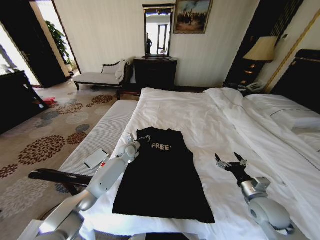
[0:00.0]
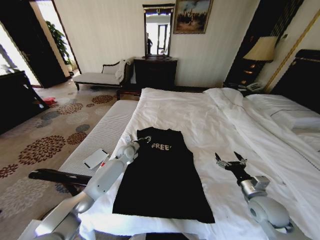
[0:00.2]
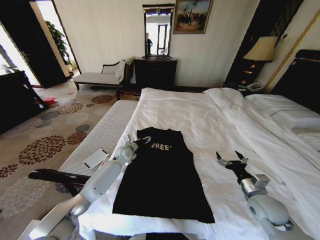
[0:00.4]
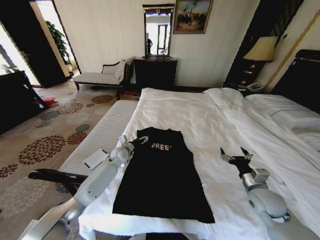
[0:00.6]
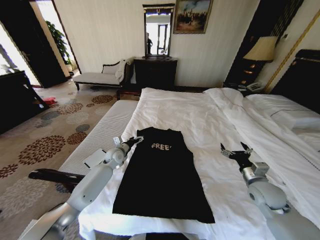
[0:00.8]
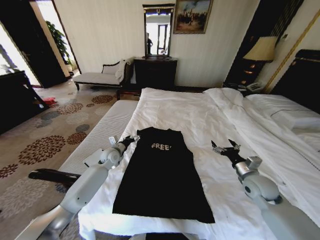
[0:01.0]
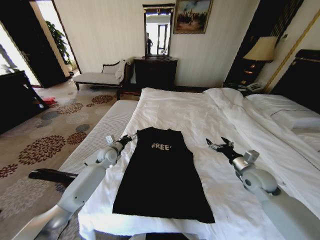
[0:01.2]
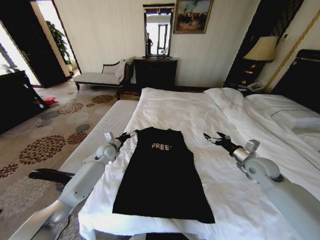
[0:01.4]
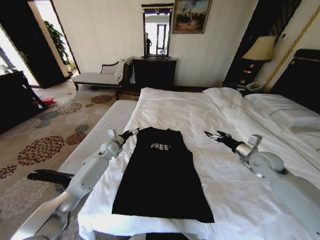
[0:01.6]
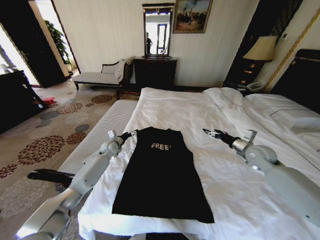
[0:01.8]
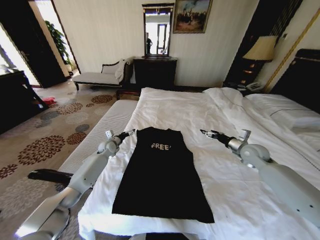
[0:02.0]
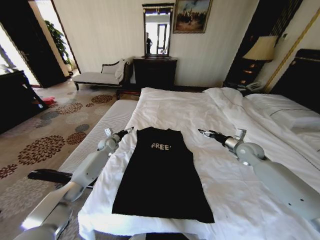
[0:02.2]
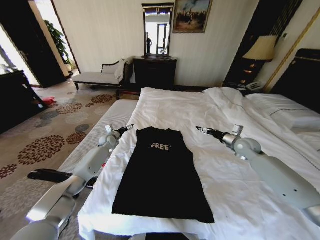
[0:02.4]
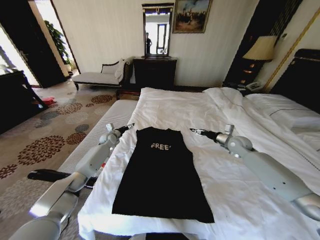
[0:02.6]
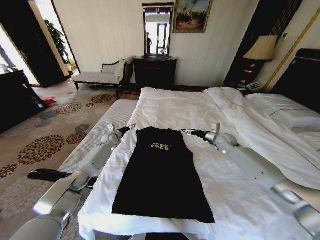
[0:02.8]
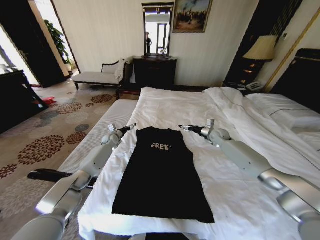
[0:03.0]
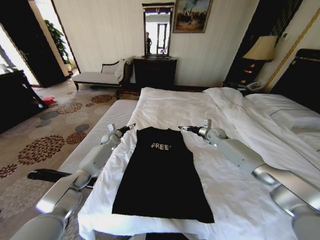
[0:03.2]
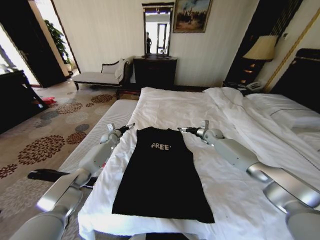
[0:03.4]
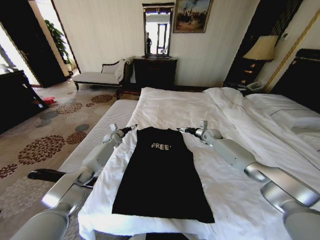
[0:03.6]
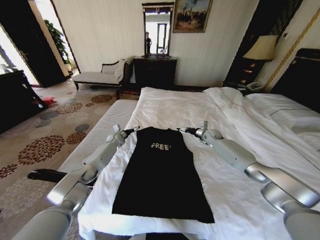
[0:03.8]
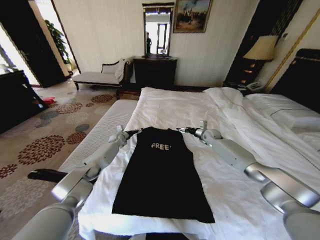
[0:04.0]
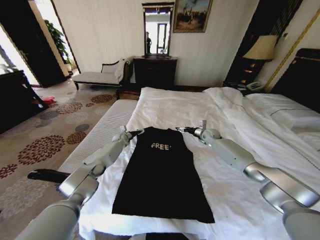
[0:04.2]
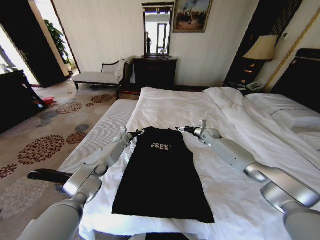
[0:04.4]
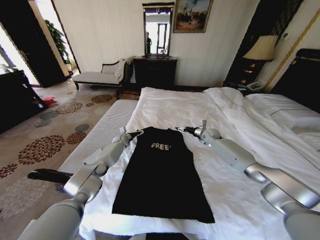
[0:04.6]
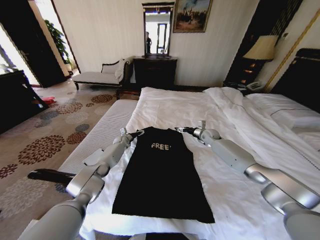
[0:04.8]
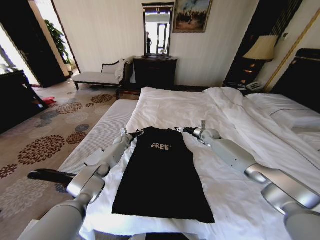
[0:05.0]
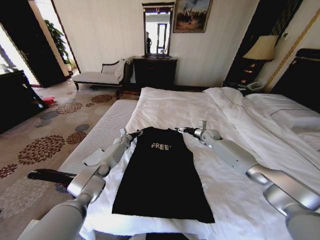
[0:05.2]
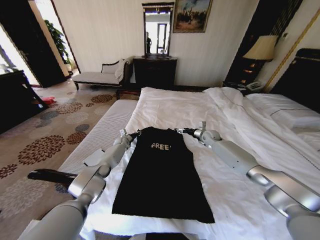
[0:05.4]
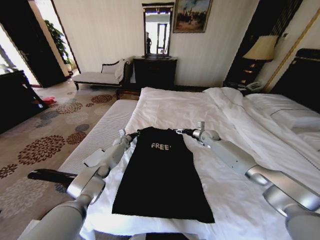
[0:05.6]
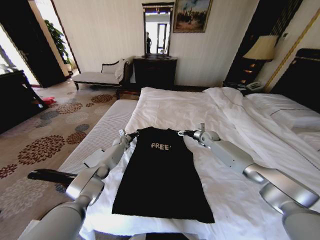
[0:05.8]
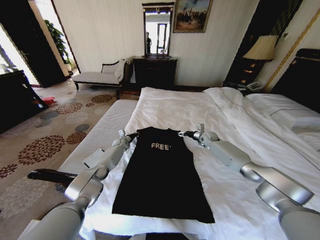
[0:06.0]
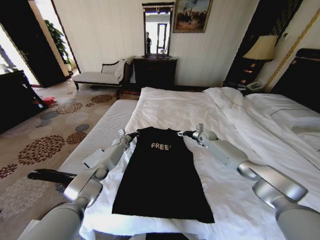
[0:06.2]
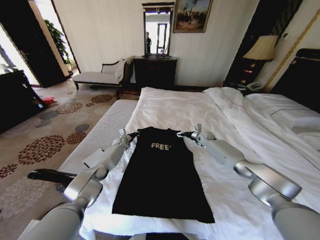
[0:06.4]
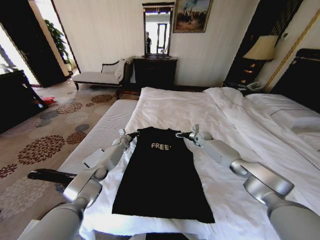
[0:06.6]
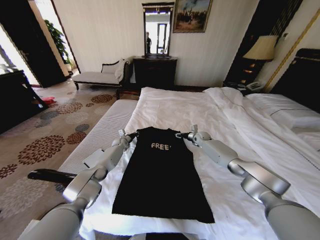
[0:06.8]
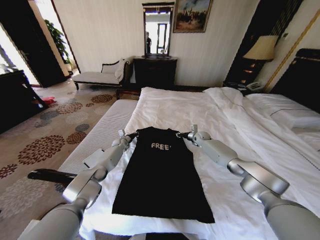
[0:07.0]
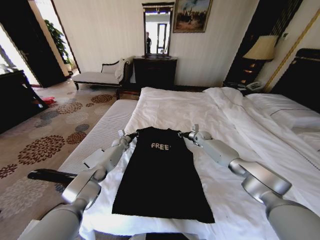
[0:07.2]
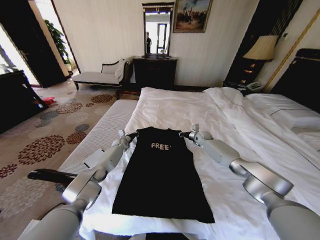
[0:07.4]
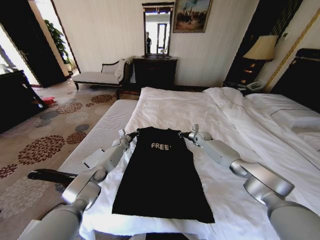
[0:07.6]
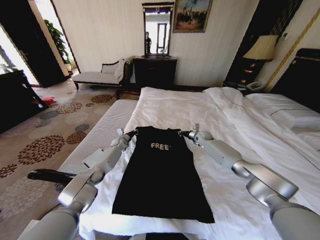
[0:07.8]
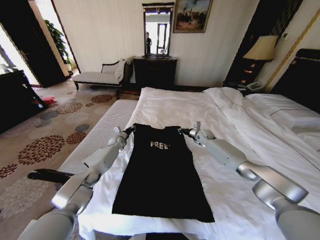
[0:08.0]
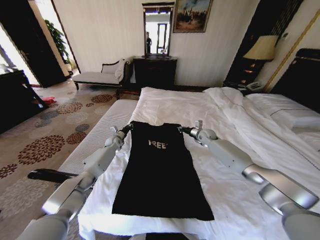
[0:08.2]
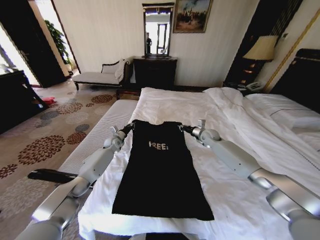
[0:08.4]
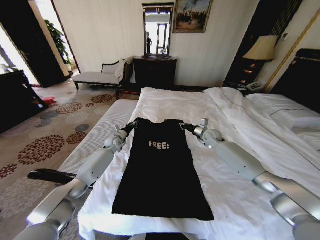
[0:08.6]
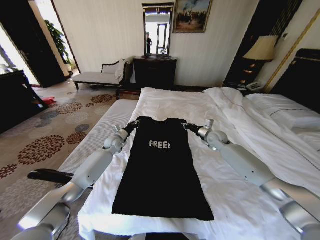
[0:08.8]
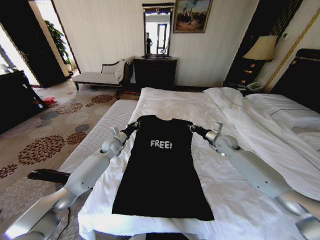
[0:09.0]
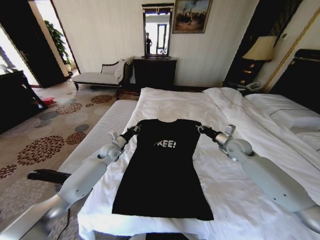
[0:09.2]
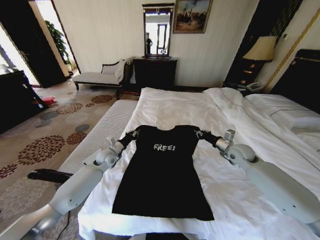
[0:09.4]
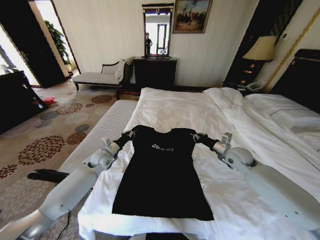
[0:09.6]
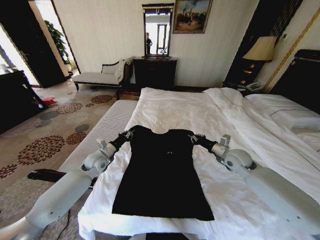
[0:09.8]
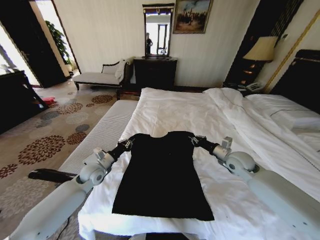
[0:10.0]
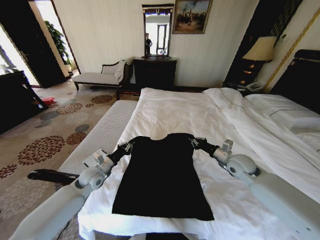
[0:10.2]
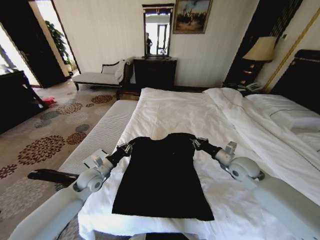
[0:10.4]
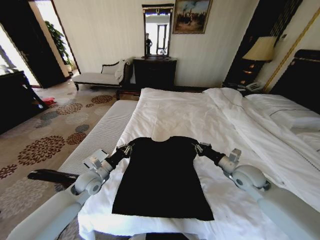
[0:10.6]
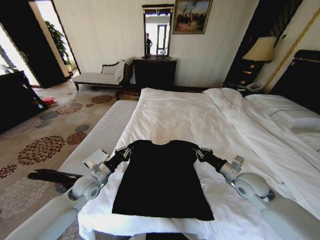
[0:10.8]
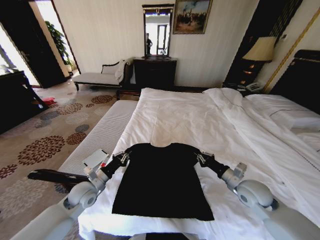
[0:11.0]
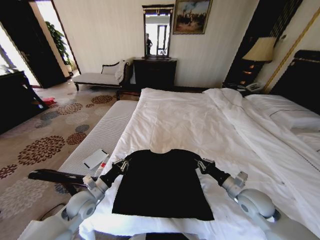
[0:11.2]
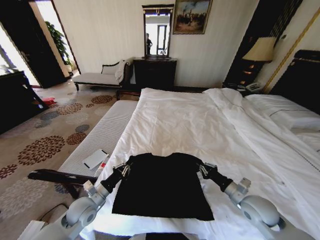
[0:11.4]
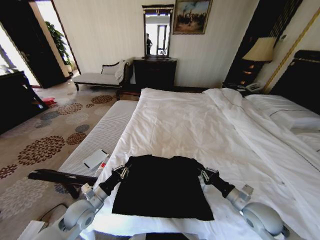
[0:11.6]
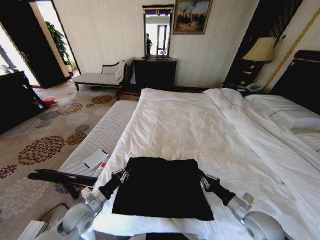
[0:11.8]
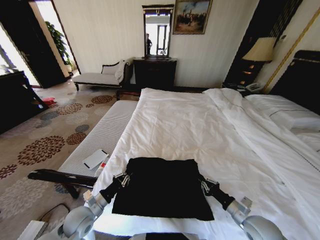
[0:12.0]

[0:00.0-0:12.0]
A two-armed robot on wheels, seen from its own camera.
Task of the whole recording: Fold the clothes on the bed.
0:00.0 to 0:01.6: The right gripper is displaced forward and upward by about 15 cm. Meanwhile the left gripper travels to the left by approximately 10 cm, and opens.
0:01.6 to 0:03.0: The right gripper goes approximately 20 cm forward. Meanwhile the left gripper is displaced forward by some 10 cm.
0:03.0 to 0:04.4: The left gripper moves to the right, some 5 cm.
0:04.4 to 0:06.0: The left gripper closes up.
0:06.0 to 0:07.6: The right gripper closes its fingers.
0:07.6 to 0:09.0: Both grippers move backward and upward, some 15 cm.
0:09.0 to 0:10.4: Both grippers travel together backward, roughly 15 cm.
0:10.4 to 0:12.0: The left gripper heads backward and downward, covering approximately 15 cm; the right gripper travels backward and downward by approximately 20 cm.

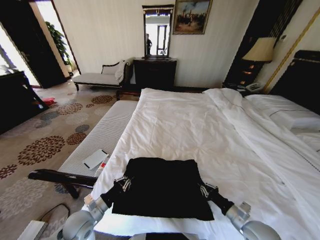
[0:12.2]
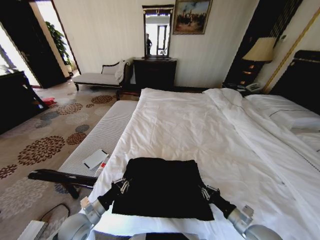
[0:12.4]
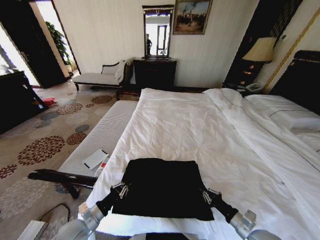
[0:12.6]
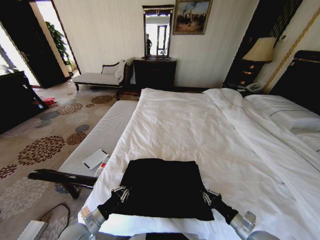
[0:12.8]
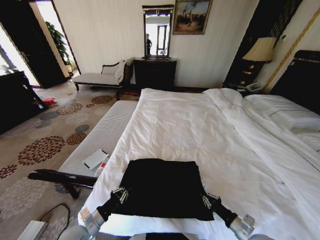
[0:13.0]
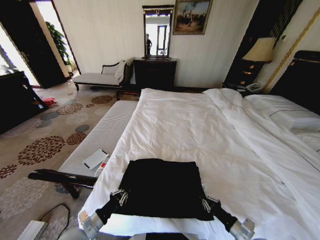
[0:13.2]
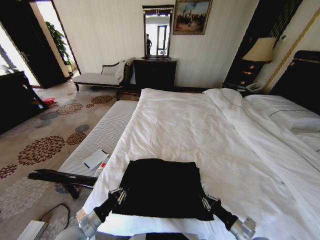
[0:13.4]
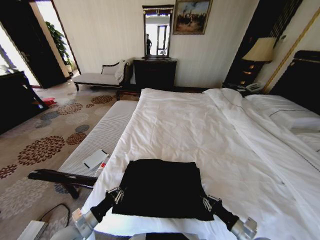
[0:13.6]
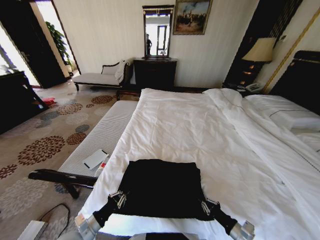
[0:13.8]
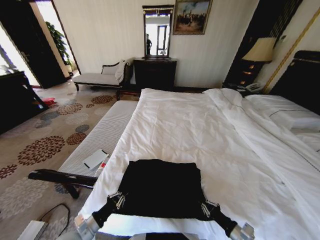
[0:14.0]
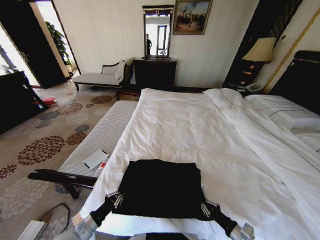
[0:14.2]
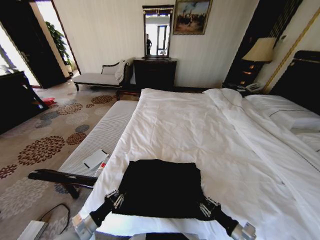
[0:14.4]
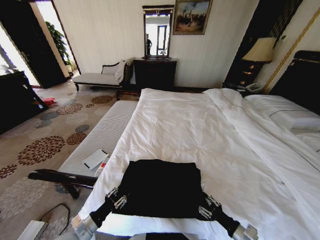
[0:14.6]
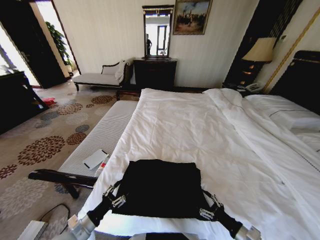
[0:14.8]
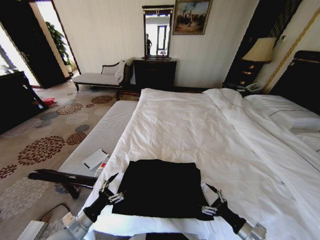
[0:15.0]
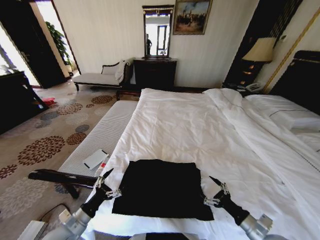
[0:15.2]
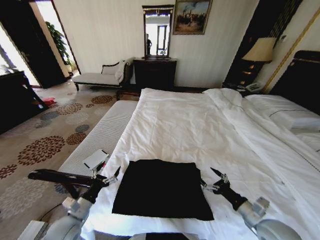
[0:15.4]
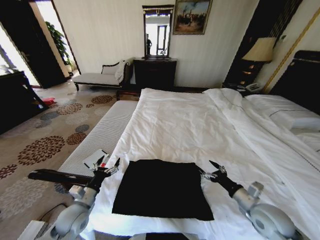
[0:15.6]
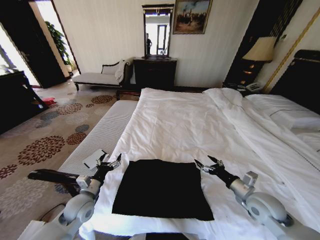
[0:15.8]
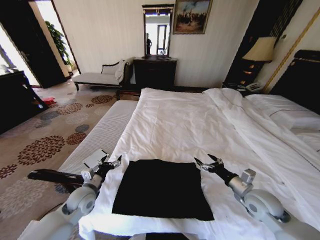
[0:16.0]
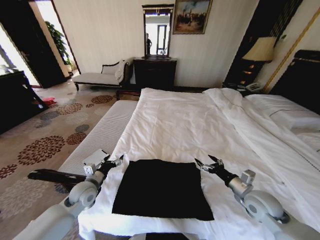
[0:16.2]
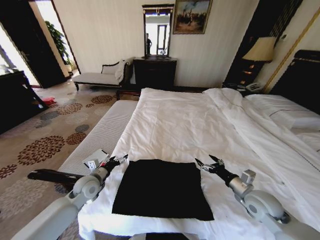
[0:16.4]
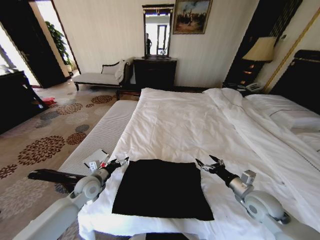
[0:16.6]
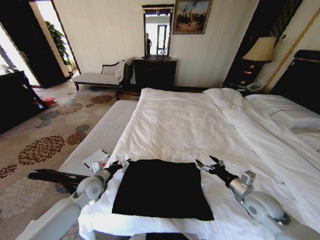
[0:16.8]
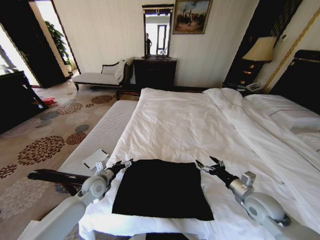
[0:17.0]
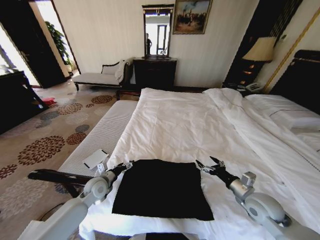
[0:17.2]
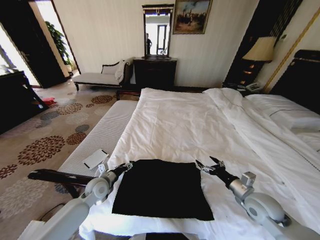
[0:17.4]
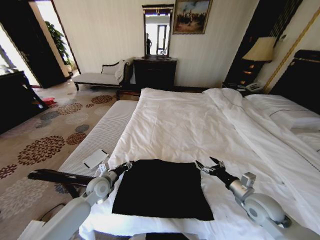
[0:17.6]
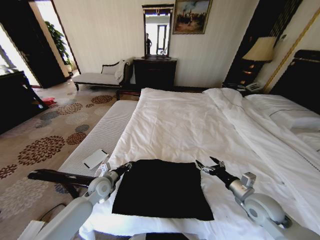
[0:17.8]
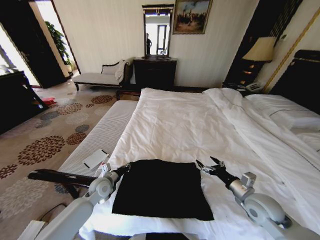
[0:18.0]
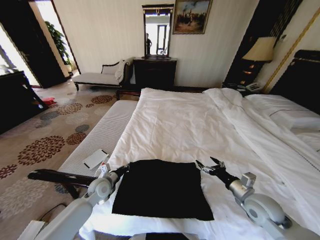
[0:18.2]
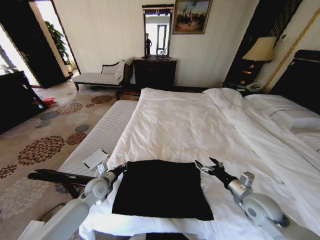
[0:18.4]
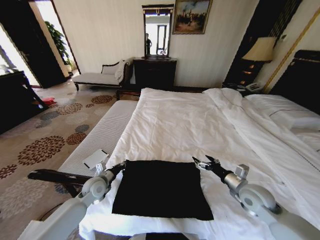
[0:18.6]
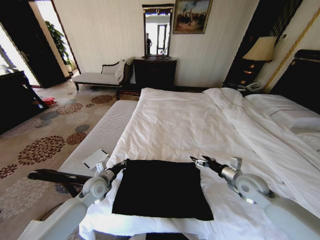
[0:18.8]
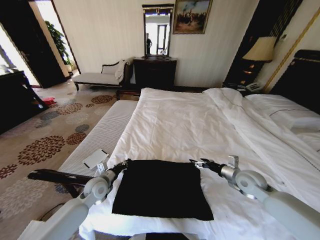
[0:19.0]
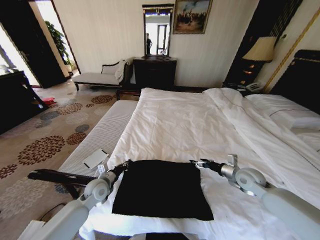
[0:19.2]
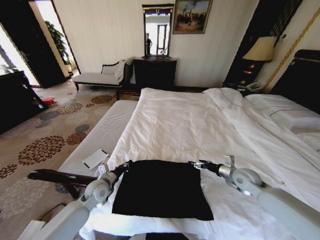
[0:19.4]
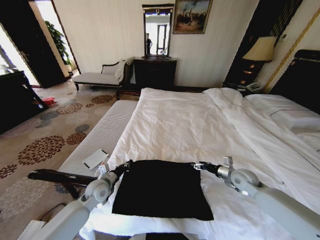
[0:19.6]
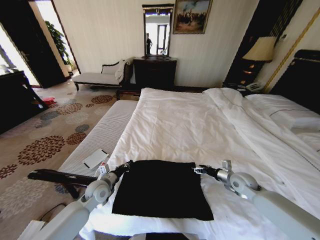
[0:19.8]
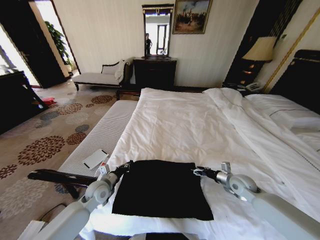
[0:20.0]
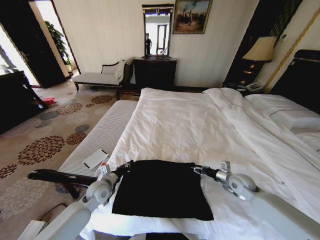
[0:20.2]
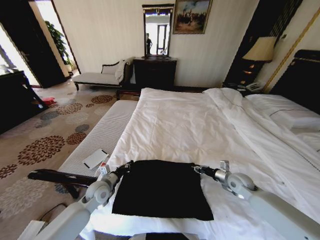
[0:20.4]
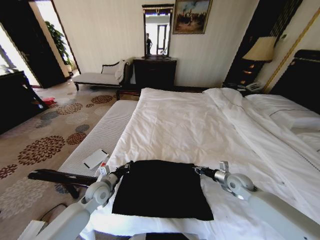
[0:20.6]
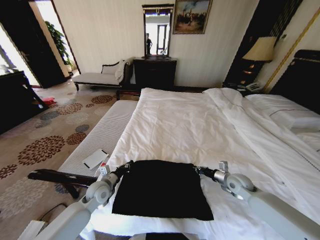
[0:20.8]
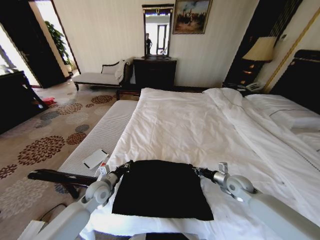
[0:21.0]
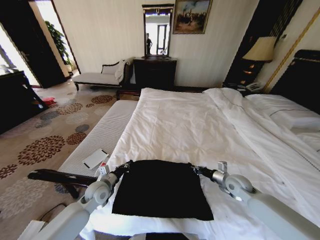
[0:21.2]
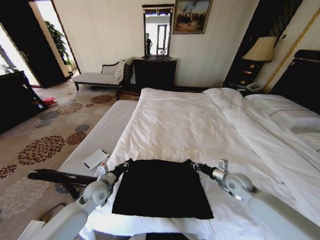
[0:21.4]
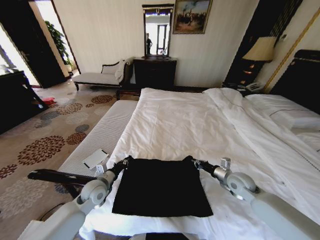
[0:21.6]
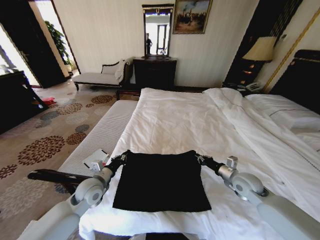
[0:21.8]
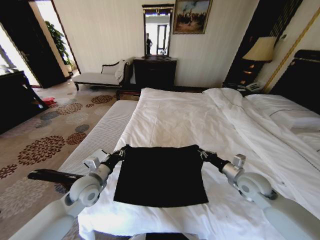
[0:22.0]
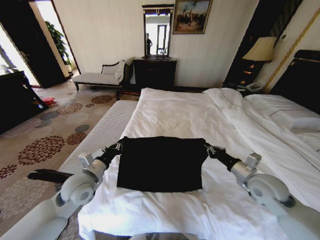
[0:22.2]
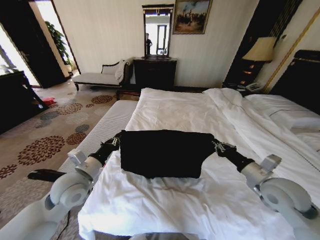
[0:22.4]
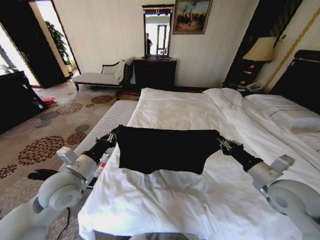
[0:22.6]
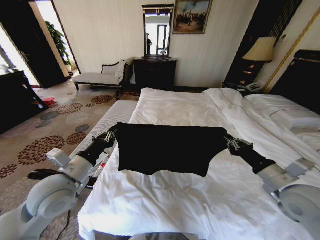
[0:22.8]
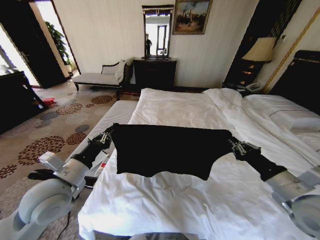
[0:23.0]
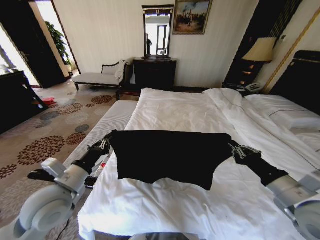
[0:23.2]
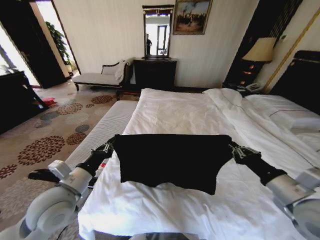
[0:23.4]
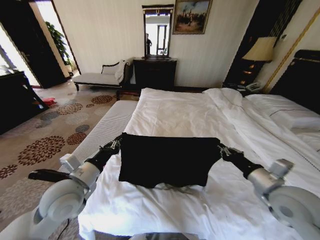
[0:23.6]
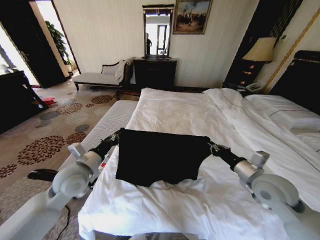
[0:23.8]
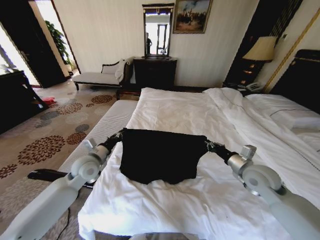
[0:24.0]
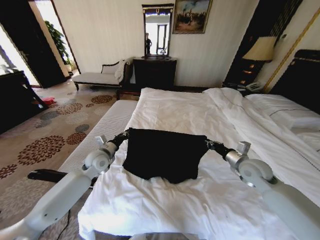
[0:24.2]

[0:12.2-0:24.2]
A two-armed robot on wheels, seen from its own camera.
Task of the whole recording: Fold the clothes on the bed.
0:12.2 to 0:13.8: The two grippers go approximately 5 cm backward.
0:13.8 to 0:15.2: The right gripper moves upward, some 5 cm, and opens its fingers; the left gripper opens up.
0:15.2 to 0:16.6: Both grippers move forward, about 15 cm.
0:16.6 to 0:18.2: The left gripper changes place by roughly 5 cm, and closes.
0:18.2 to 0:19.8: The right gripper goes roughly 10 cm forward and downward.
0:19.8 to 0:21.2: The right gripper closes.
0:21.2 to 0:22.6: The right gripper moves upward and backward, about 20 cm, while the left gripper shifts roughly 20 cm upward.
0:22.6 to 0:24.2: The right gripper is displaced forward by some 10 cm. The left gripper shifts some 15 cm forward and downward.
